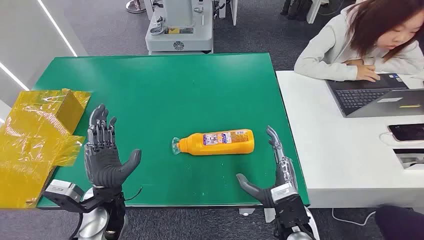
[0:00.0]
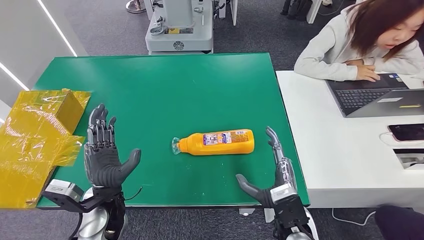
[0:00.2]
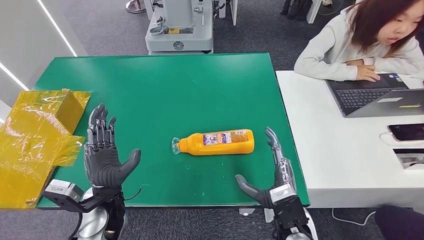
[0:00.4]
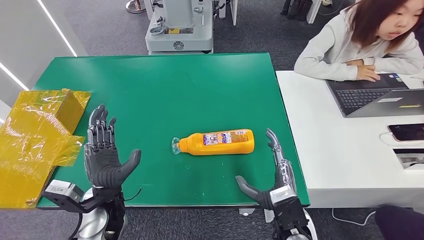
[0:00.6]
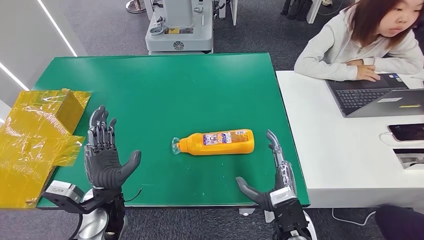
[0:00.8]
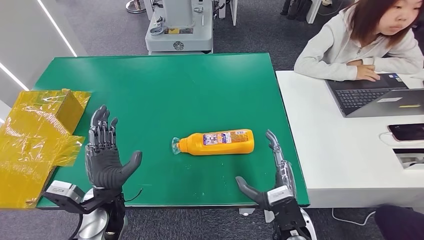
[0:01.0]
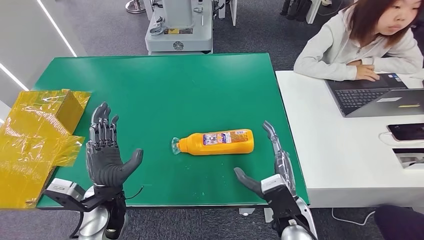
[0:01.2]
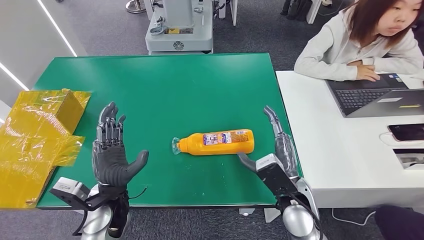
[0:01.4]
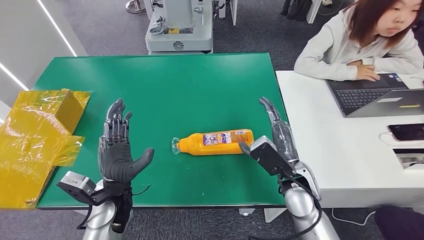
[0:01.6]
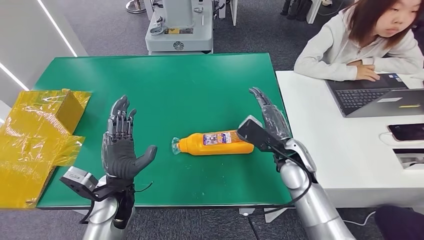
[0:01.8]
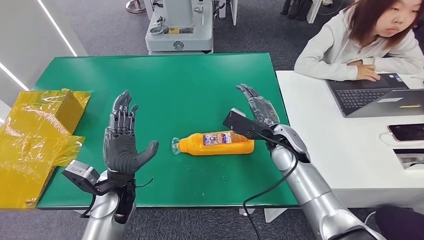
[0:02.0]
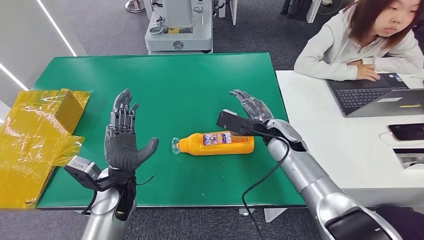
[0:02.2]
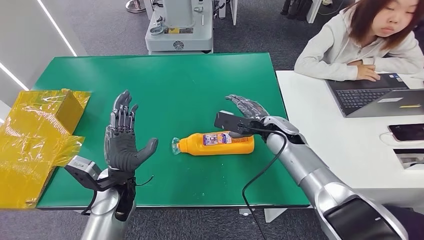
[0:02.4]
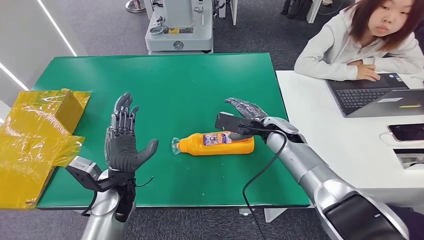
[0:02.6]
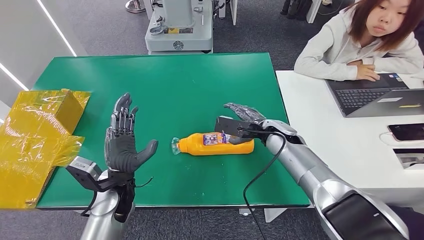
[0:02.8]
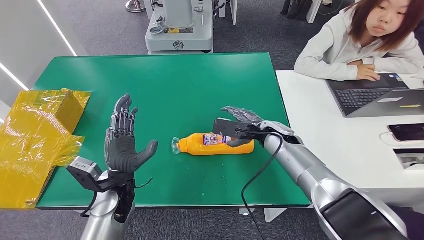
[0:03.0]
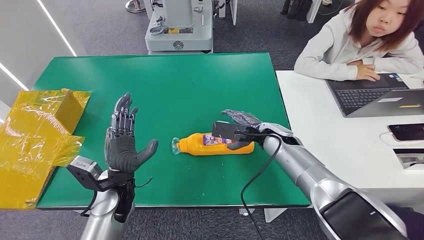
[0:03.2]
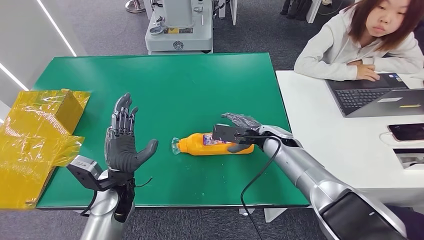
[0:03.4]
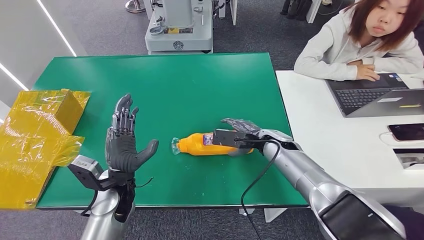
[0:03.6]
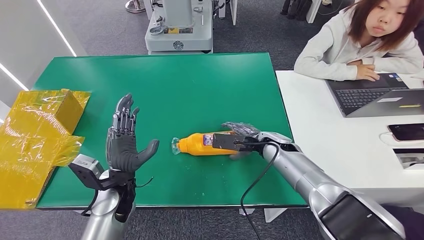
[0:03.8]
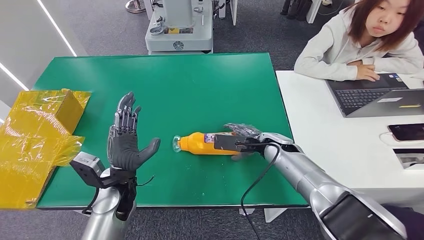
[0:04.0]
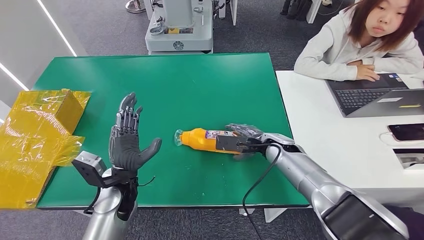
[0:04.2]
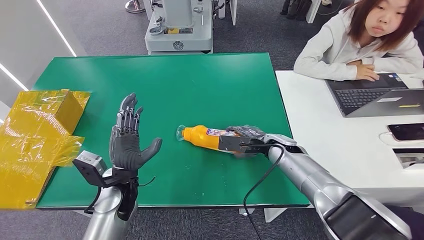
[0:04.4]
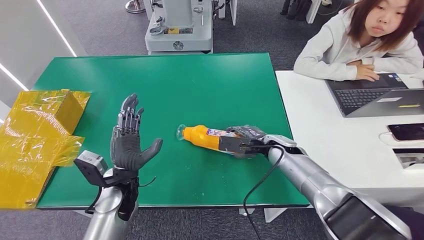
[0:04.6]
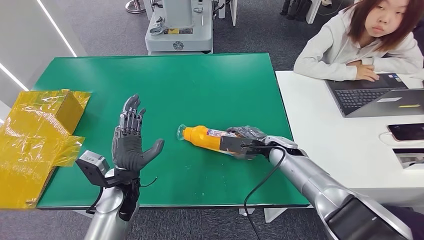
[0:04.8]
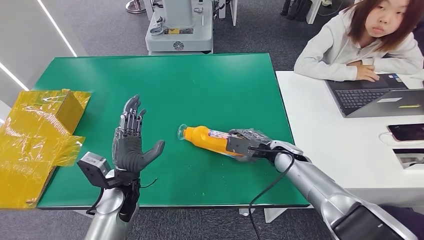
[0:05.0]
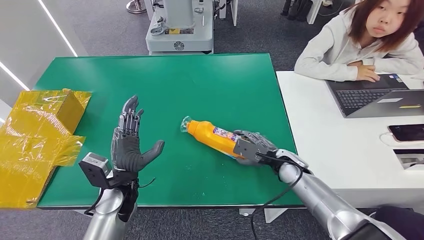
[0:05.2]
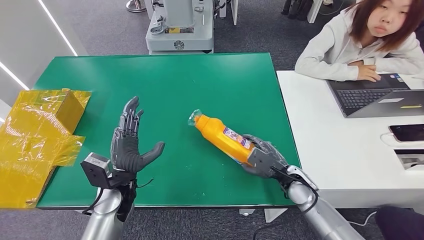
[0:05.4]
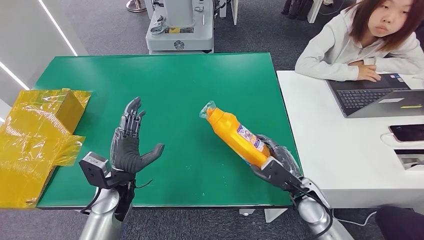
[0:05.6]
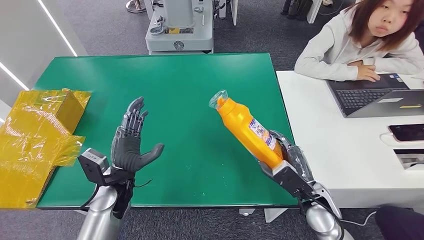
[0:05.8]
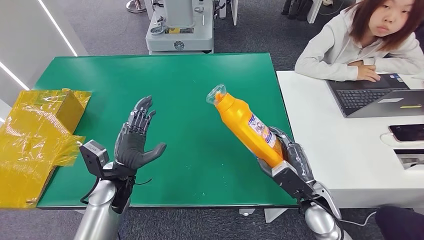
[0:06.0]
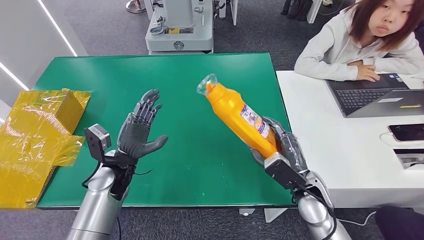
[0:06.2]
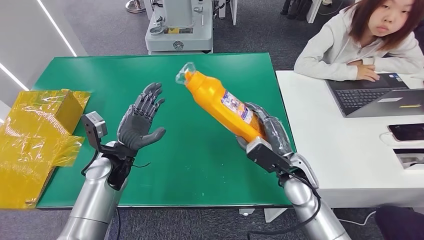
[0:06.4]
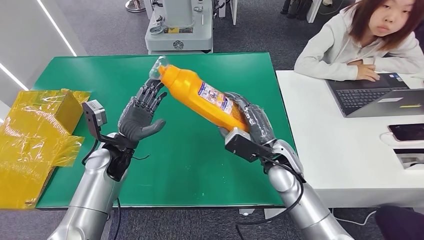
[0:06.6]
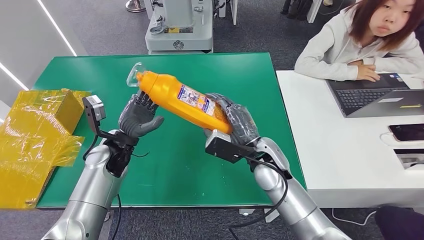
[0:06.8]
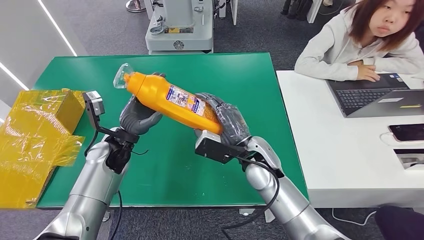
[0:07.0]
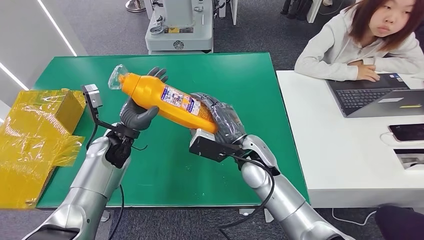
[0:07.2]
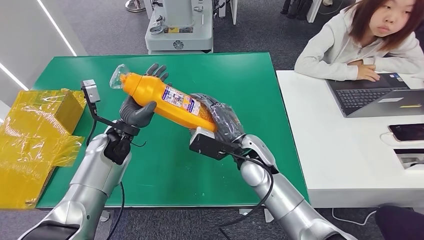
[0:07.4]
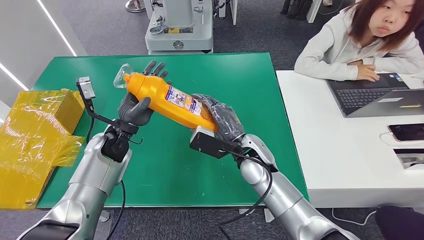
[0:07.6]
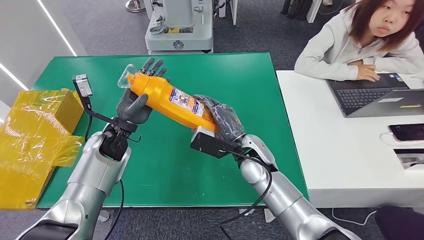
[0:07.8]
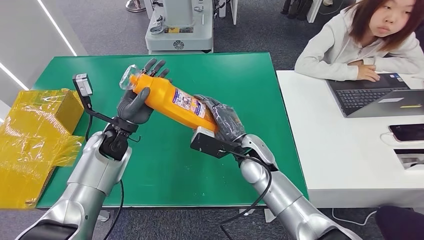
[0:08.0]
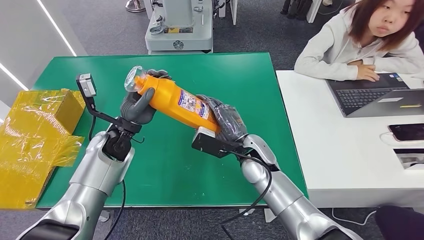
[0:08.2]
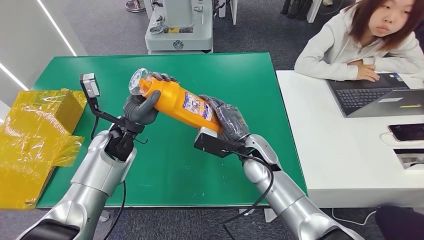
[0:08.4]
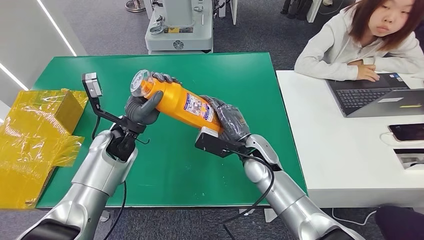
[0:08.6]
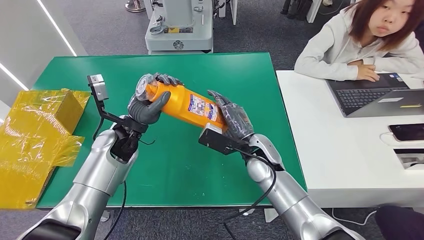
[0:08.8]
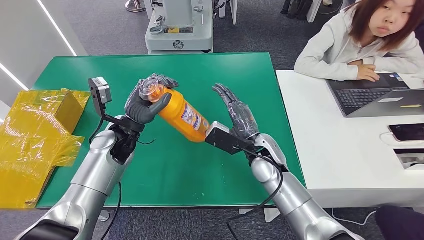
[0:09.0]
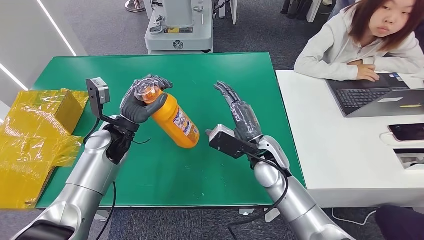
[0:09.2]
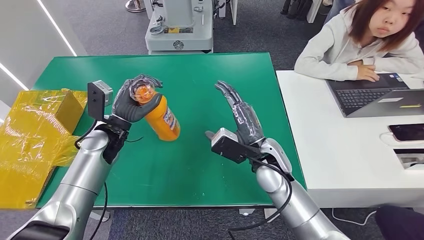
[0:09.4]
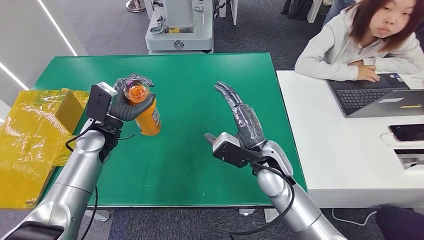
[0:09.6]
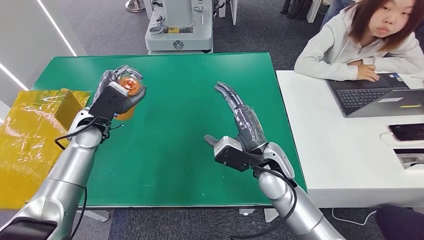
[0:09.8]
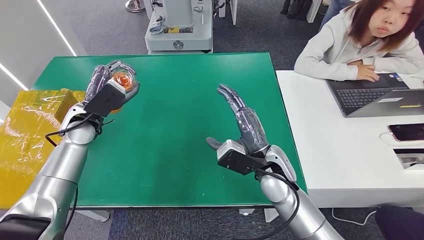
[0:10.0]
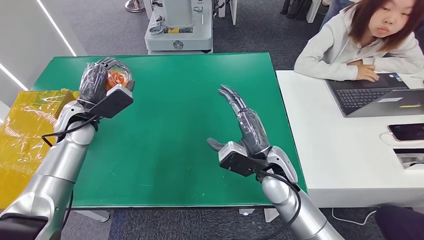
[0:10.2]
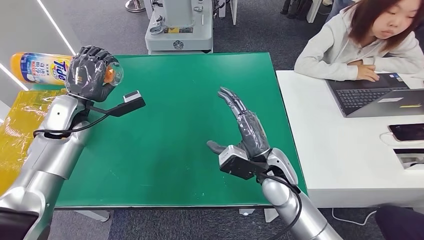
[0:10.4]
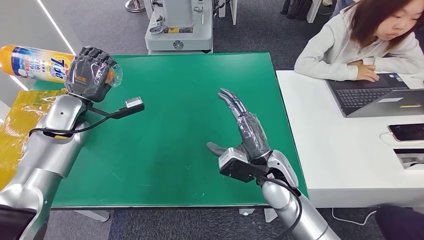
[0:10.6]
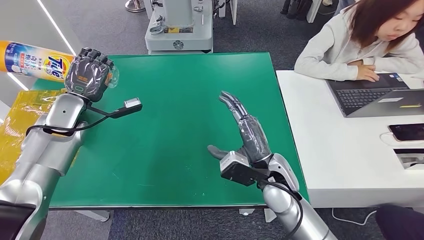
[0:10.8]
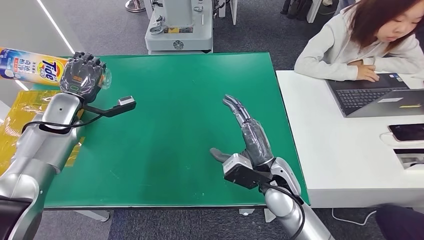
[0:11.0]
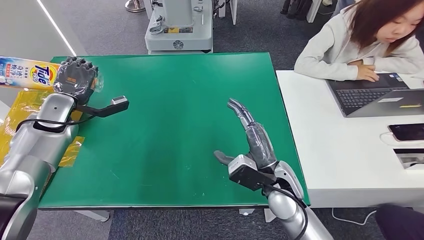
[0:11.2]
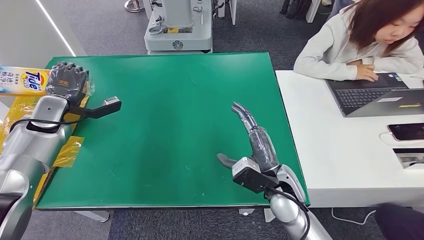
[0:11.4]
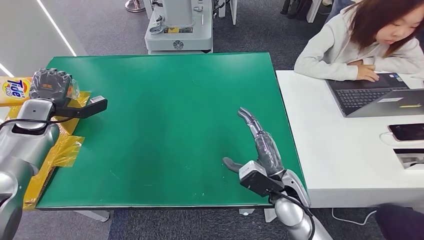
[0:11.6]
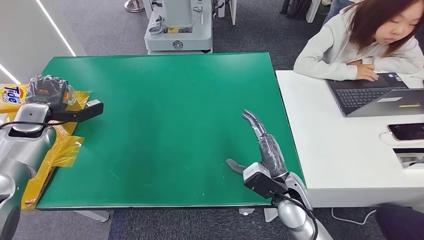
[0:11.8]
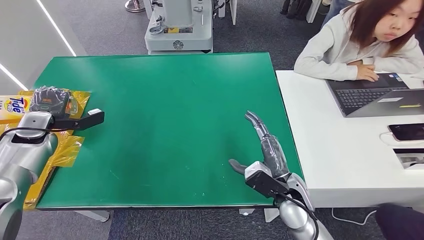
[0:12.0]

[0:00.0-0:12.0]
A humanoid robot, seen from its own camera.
Step, 0.0 to 7.2 s: Pick up the bottle from the table.
1.6 to 3.0 s: The right hand travels forward by roughly 15 cm.
3.0 to 4.4 s: The hands make only small movements.
4.4 to 6.0 s: The right hand heads backward, covering roughly 15 cm.
7.6 to 9.0 s: The hands move only a little.
10.4 to 12.0 s: The left hand moves to the left, approximately 15 cm; the right hand shifts by approximately 10 cm.

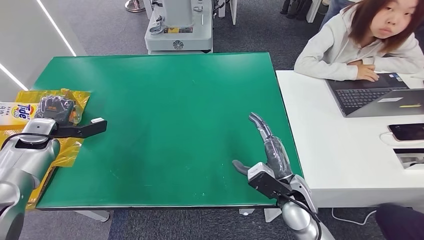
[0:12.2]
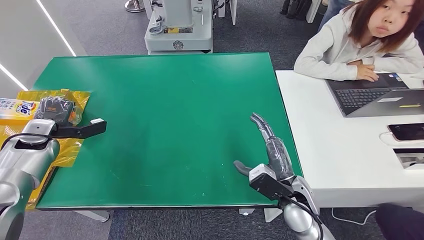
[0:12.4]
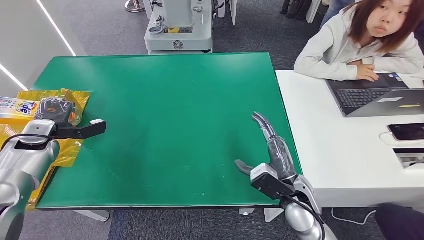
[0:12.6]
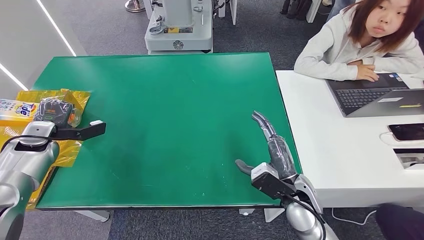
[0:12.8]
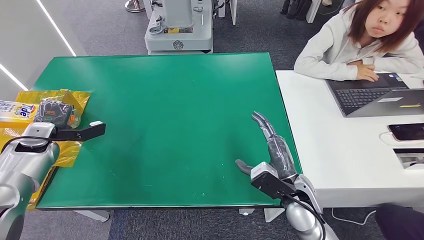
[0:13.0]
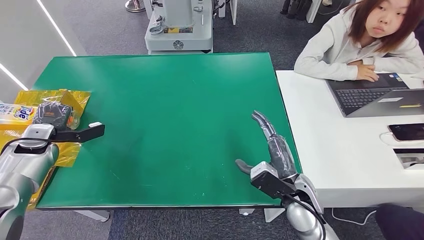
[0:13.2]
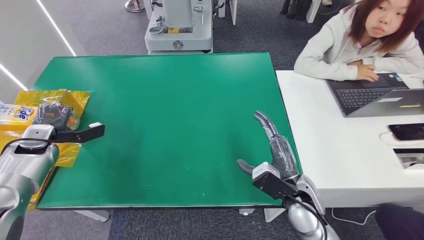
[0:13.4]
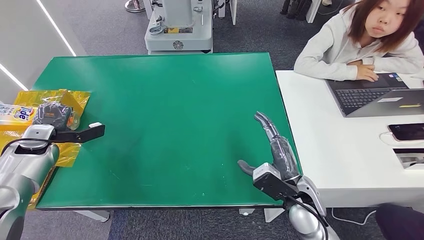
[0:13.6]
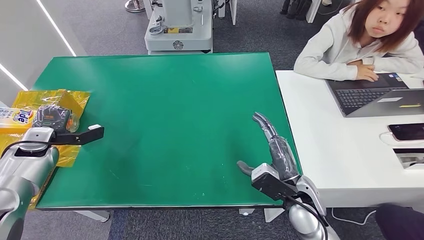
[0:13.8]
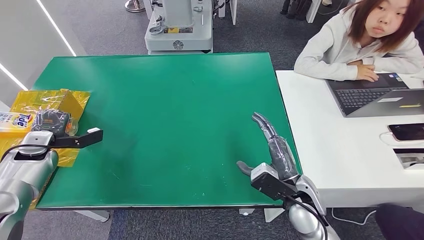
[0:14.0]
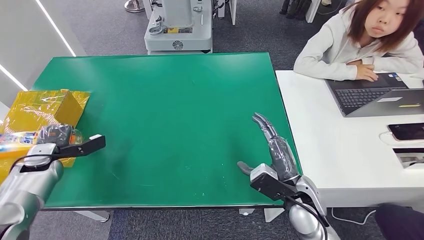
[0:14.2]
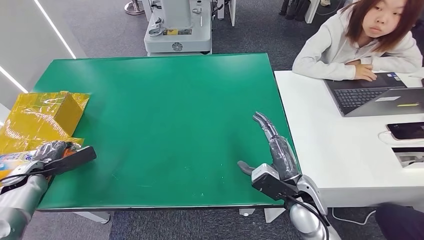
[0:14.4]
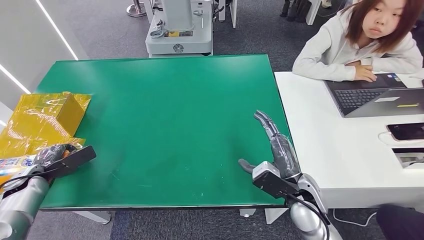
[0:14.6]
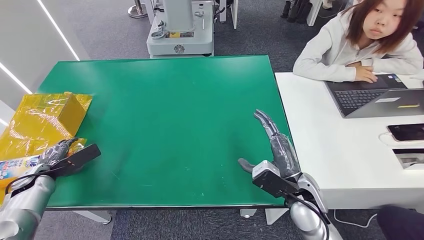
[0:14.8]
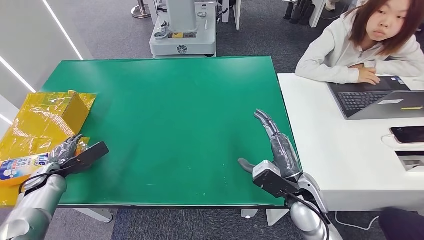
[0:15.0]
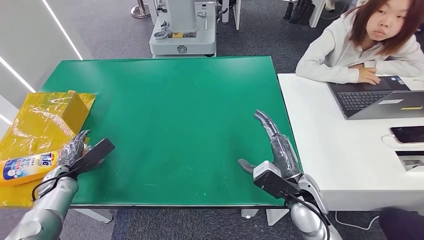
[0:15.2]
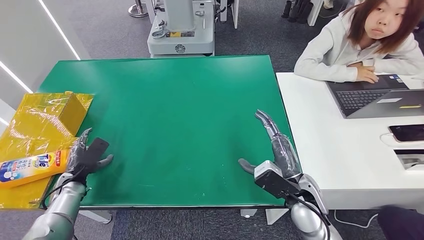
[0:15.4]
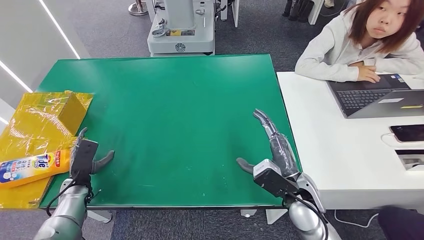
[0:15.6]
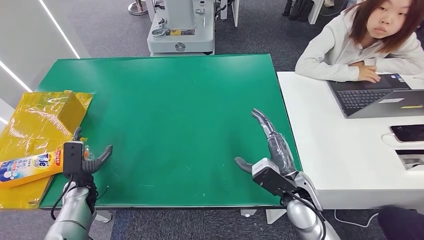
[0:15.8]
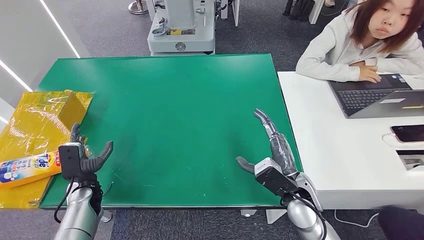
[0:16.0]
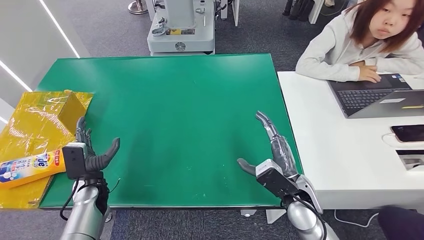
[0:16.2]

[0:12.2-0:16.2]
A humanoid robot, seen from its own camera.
Step, 12.2 to 16.2 s: Turn the bottle to the front side.
12.2 to 13.6 s: The hands make only small movements.
13.6 to 14.8 s: The left hand shifts some 15 cm downward and backward.
14.8 to 16.2 s: The left hand is displaced to the right by some 15 cm.

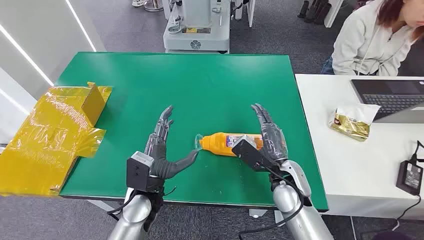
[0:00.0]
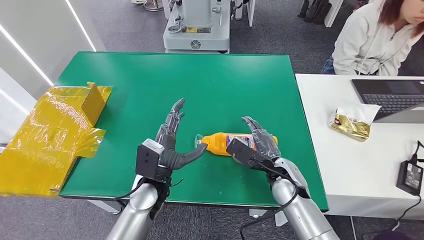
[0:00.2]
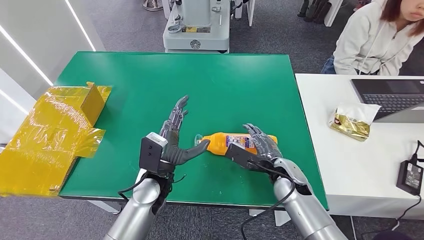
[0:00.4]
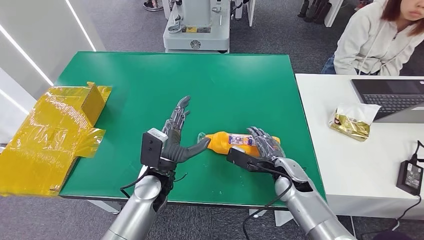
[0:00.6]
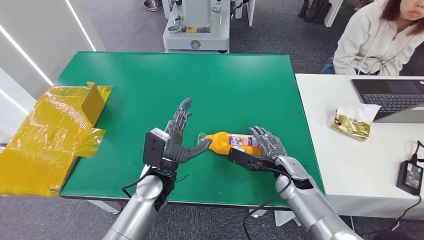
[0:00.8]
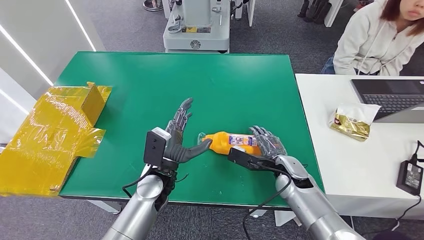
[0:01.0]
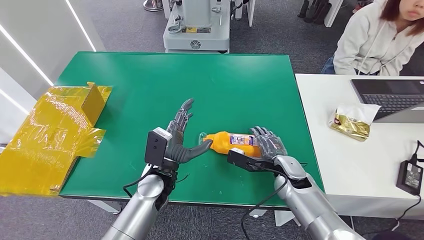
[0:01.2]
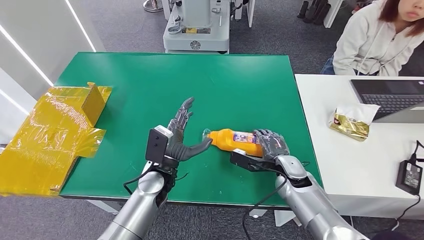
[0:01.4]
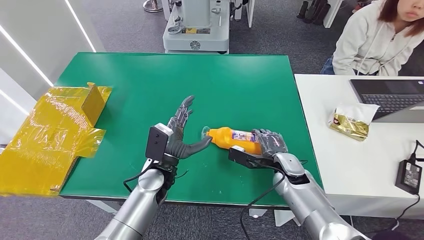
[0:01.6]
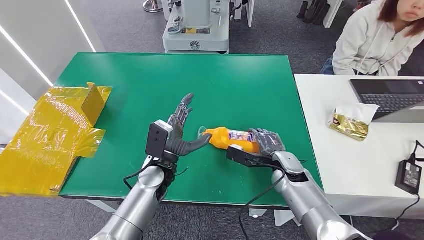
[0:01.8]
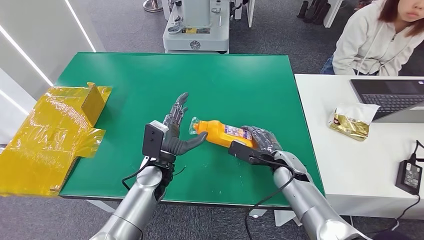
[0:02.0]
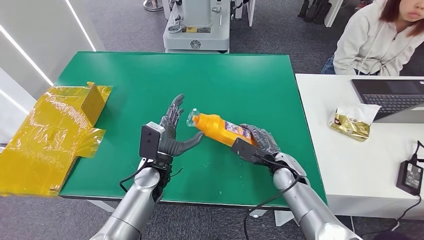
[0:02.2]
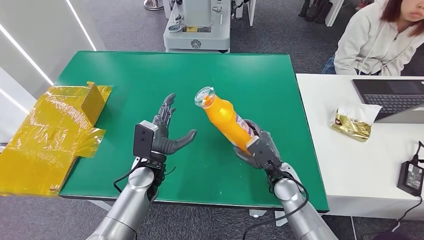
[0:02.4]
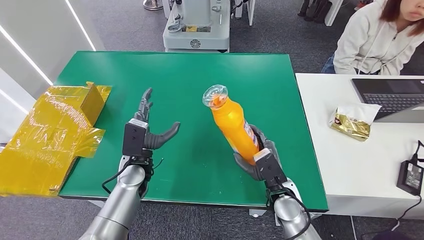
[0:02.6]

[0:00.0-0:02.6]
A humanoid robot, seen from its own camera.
Step, 0.0 to 2.4 s: Pick up the bottle from the table.
1.2 to 2.6 s: The left hand moves to the left, approximately 5 cm. Meanwhile the right hand goes about 5 cm backward.
